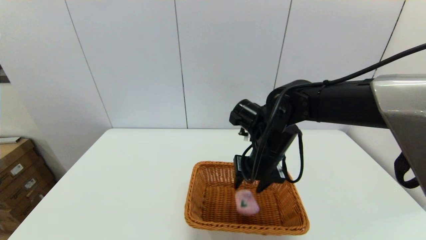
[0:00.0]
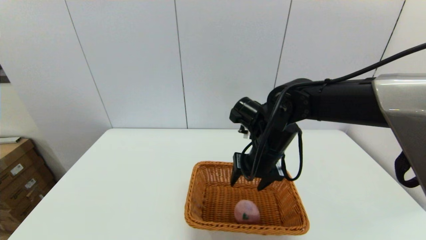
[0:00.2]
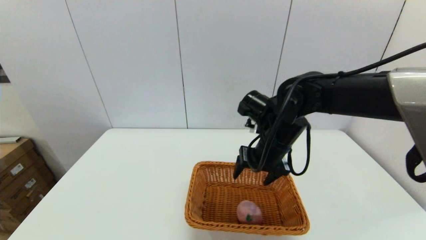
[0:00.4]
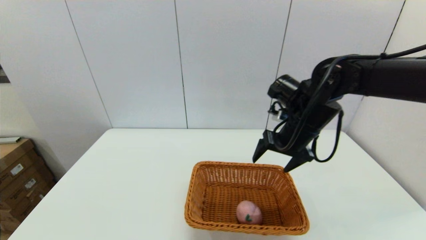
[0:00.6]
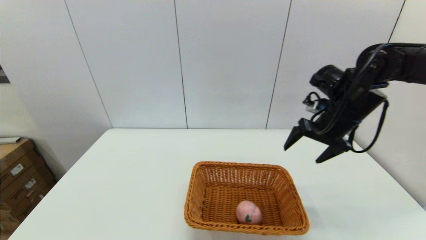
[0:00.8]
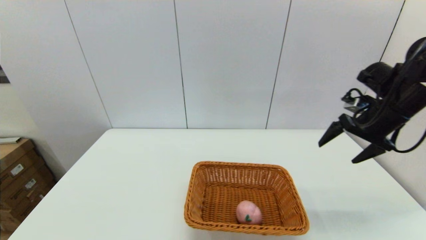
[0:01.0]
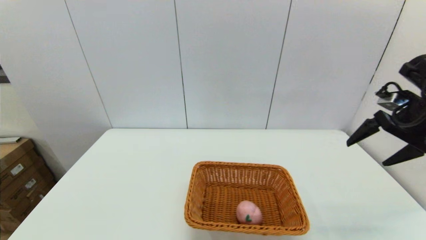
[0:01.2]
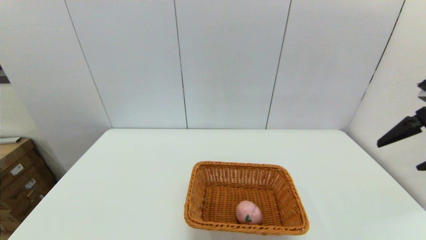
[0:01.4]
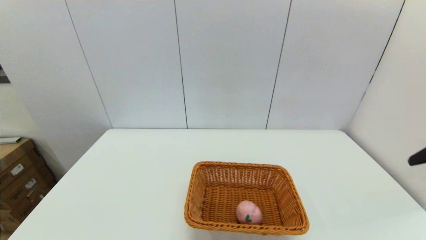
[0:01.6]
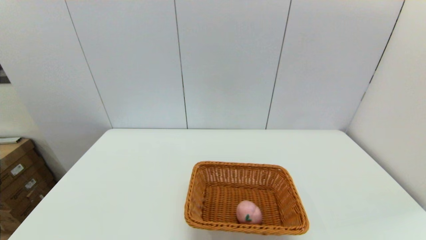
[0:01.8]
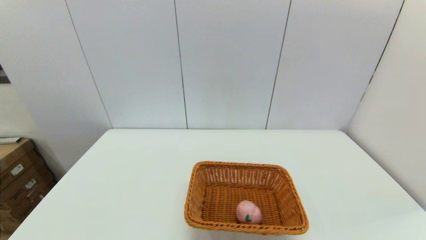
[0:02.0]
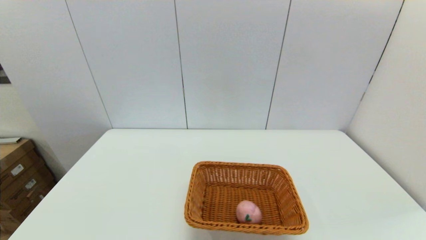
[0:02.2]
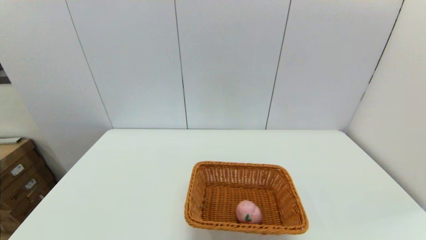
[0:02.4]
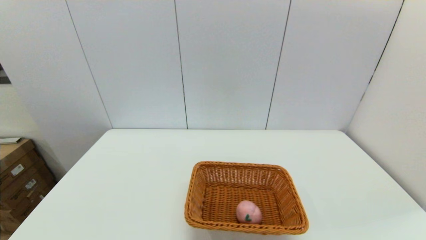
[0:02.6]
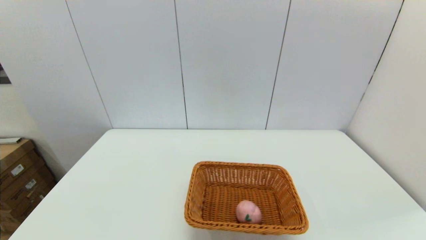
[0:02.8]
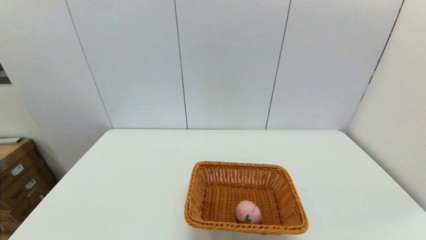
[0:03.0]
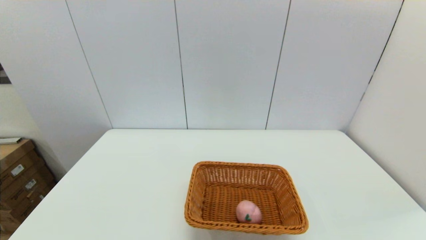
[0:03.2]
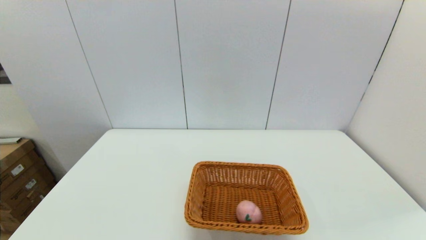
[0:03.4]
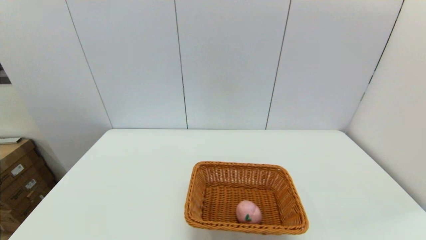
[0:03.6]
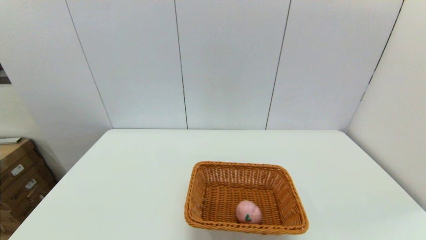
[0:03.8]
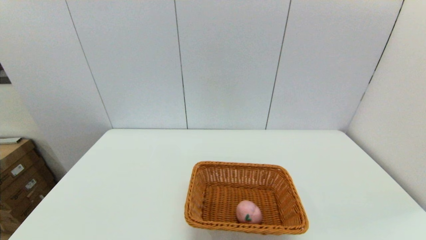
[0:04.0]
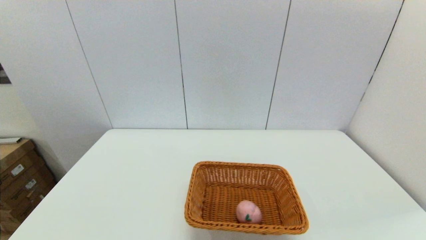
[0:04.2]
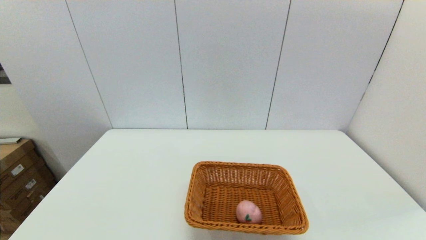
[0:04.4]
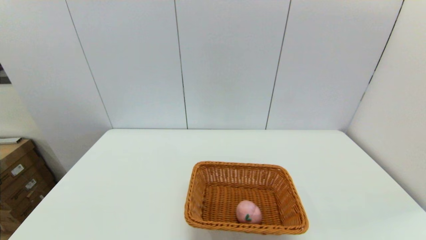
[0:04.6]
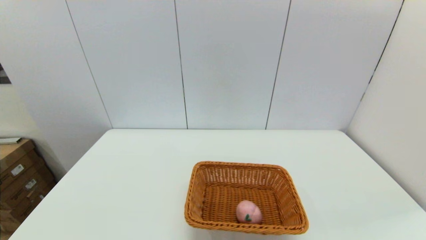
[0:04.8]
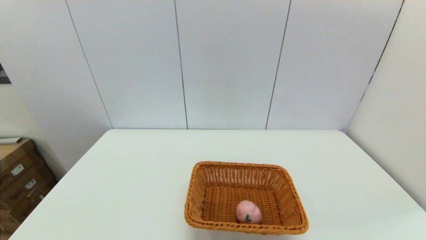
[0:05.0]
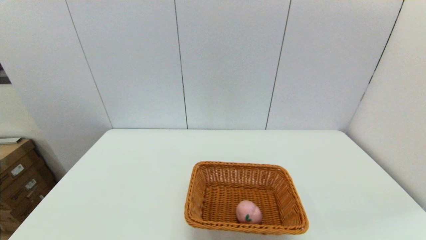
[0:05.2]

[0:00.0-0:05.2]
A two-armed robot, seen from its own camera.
0:00.0 to 0:01.8: The right gripper is displaced to the right, backward and upward by approximately 35 cm, and opens its fingers.

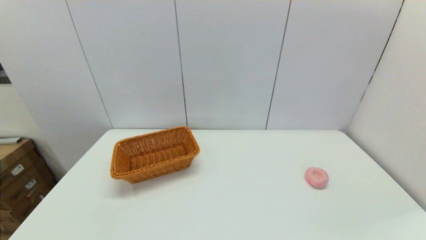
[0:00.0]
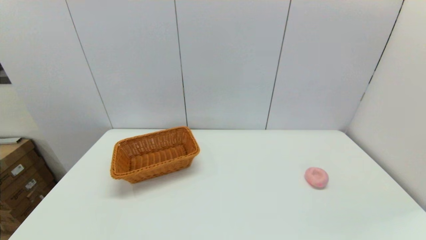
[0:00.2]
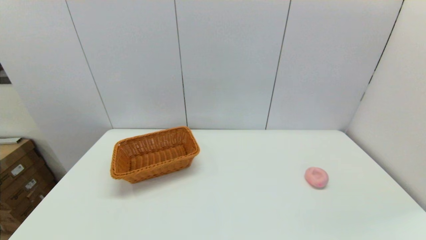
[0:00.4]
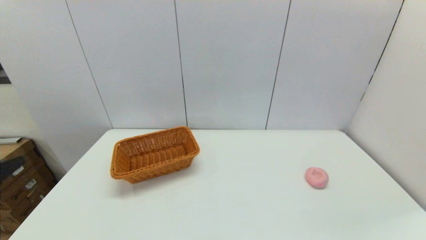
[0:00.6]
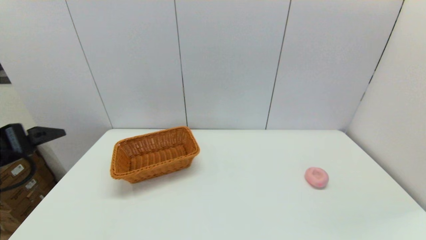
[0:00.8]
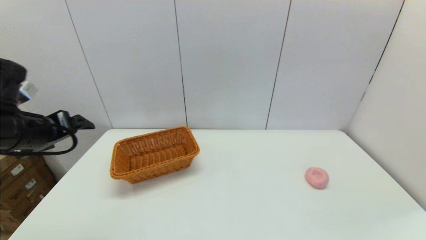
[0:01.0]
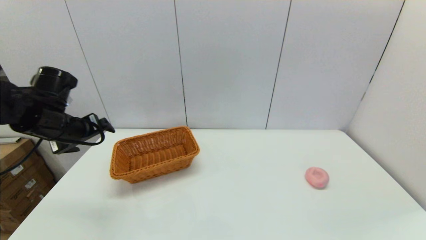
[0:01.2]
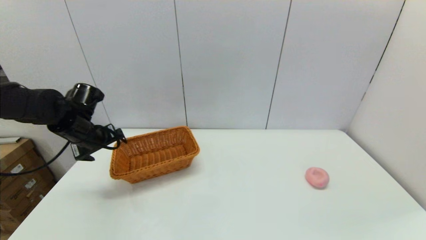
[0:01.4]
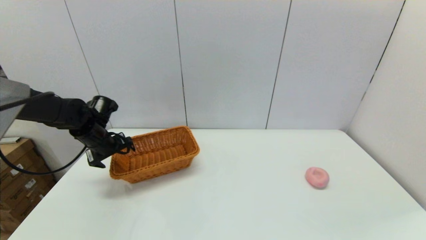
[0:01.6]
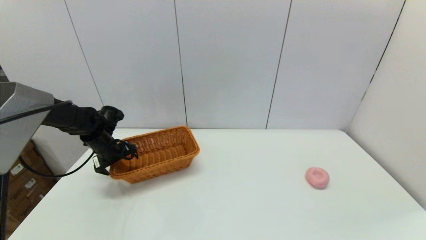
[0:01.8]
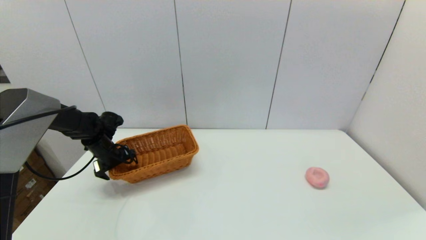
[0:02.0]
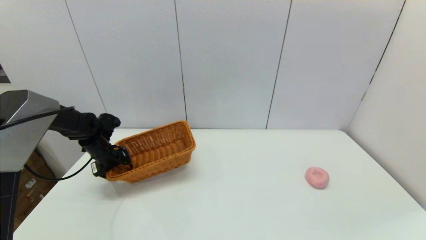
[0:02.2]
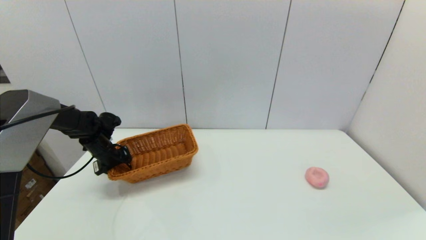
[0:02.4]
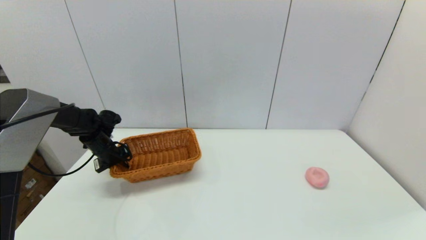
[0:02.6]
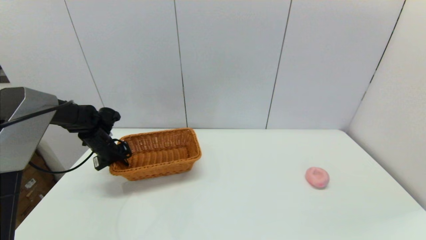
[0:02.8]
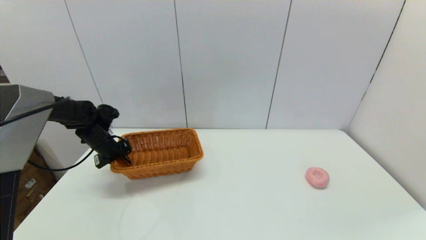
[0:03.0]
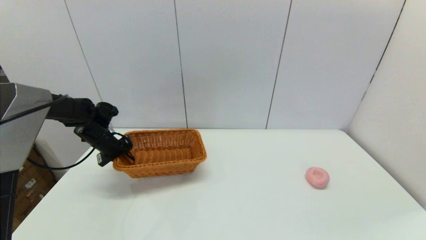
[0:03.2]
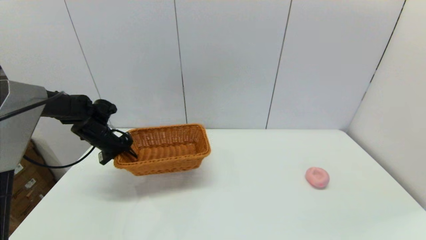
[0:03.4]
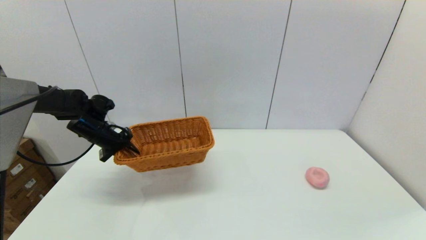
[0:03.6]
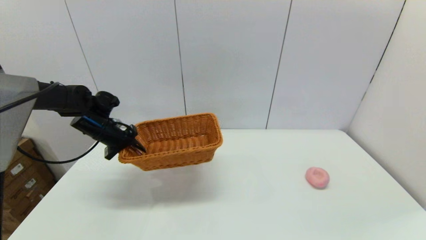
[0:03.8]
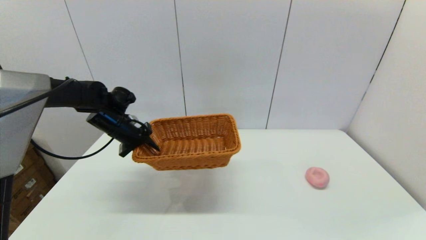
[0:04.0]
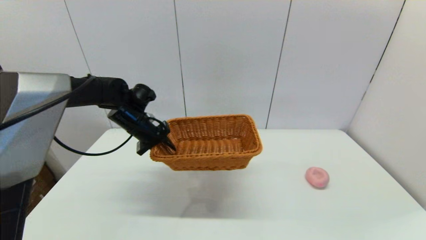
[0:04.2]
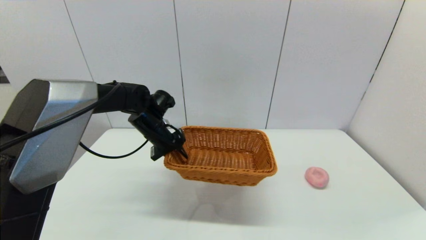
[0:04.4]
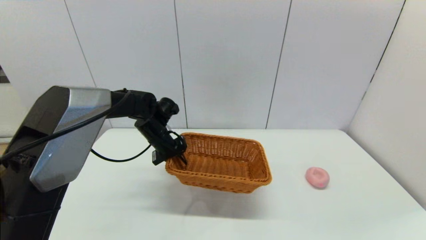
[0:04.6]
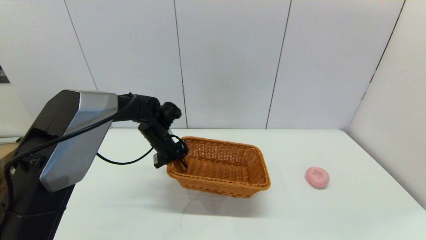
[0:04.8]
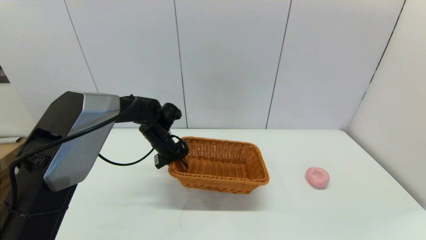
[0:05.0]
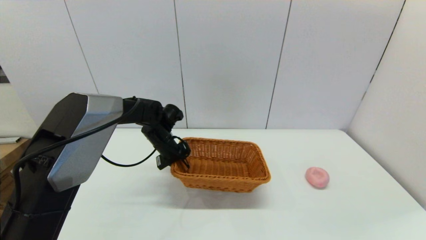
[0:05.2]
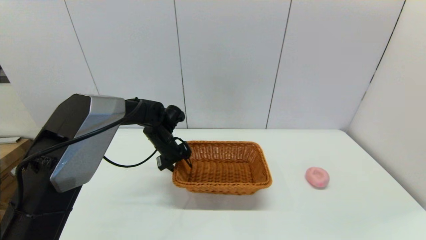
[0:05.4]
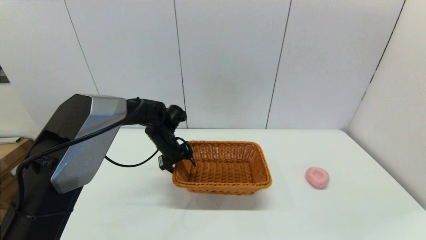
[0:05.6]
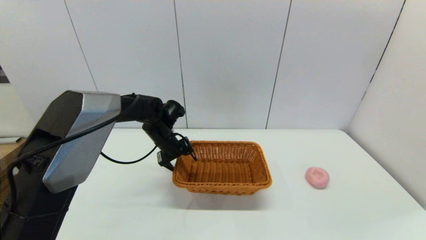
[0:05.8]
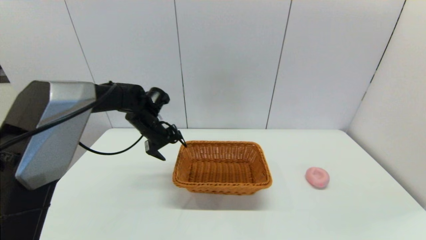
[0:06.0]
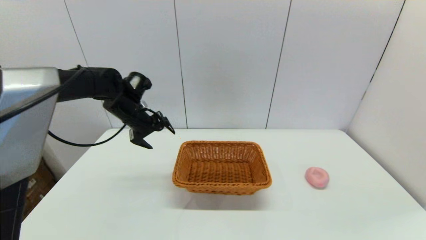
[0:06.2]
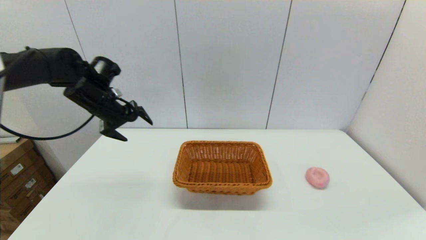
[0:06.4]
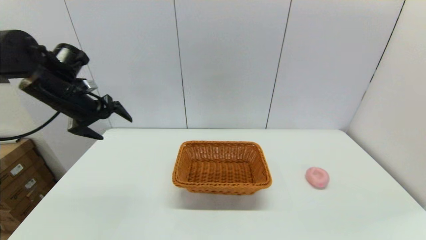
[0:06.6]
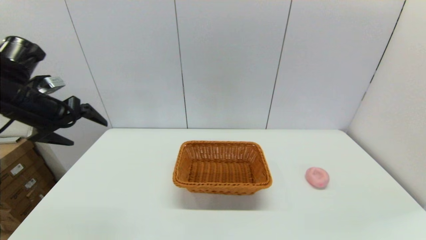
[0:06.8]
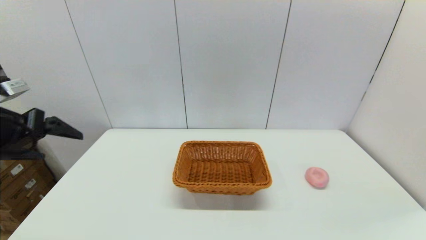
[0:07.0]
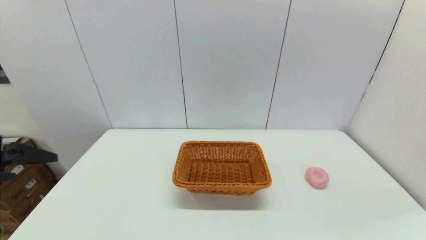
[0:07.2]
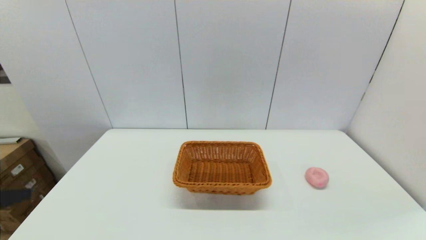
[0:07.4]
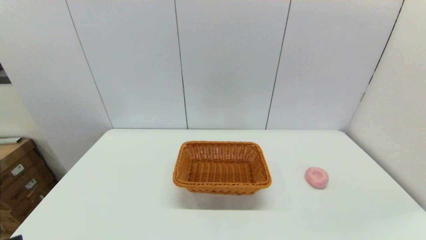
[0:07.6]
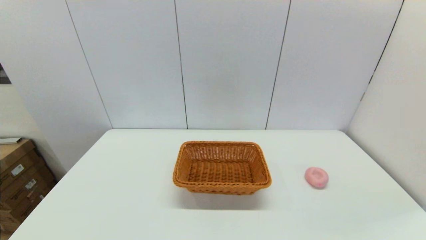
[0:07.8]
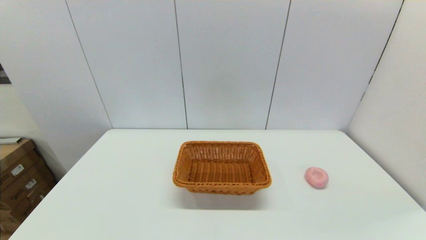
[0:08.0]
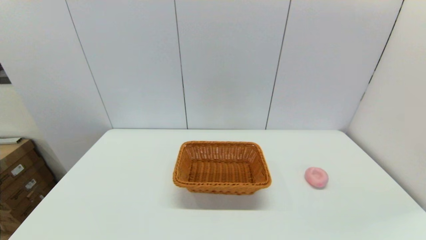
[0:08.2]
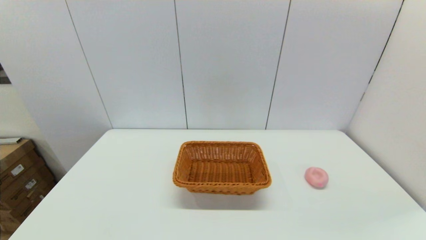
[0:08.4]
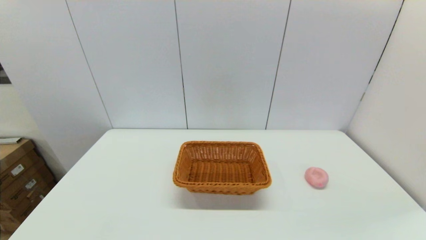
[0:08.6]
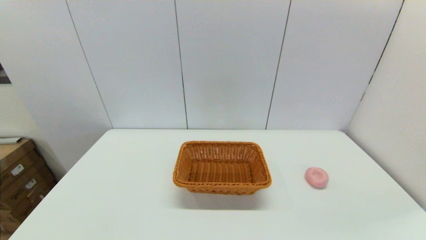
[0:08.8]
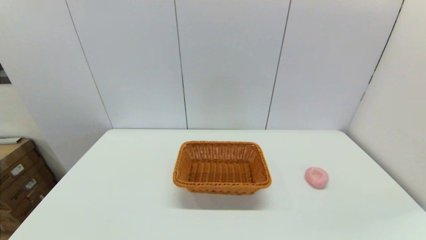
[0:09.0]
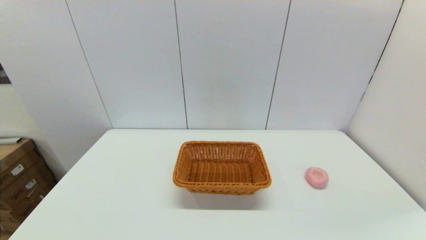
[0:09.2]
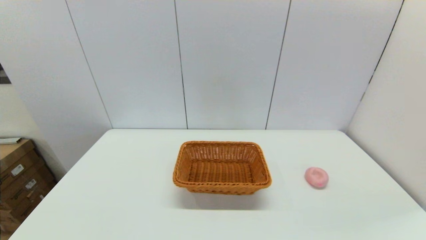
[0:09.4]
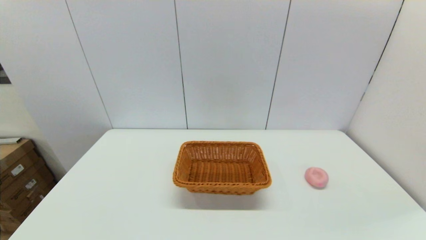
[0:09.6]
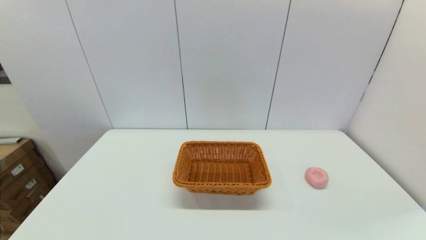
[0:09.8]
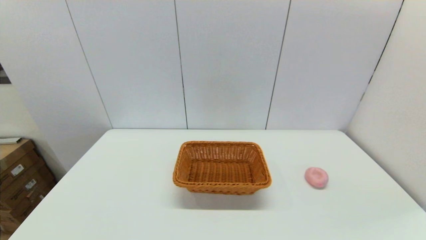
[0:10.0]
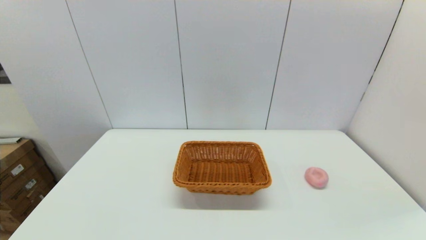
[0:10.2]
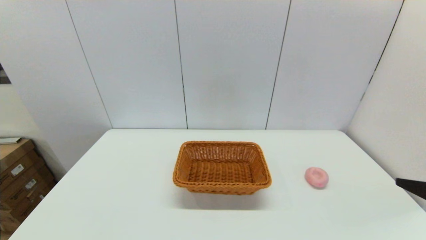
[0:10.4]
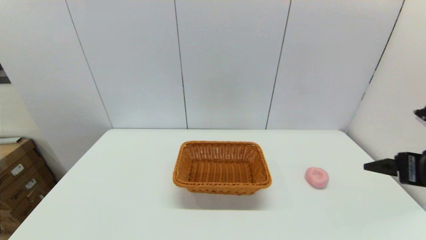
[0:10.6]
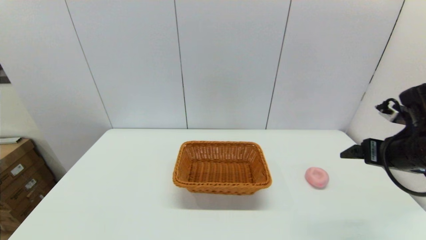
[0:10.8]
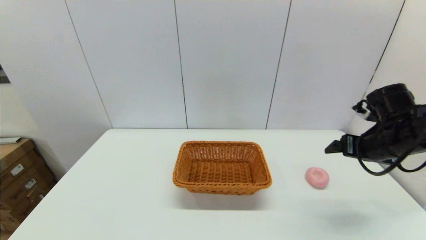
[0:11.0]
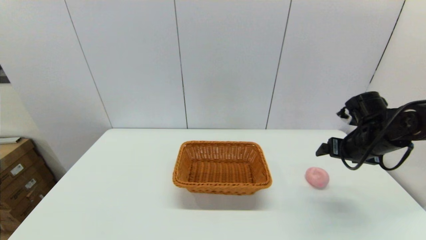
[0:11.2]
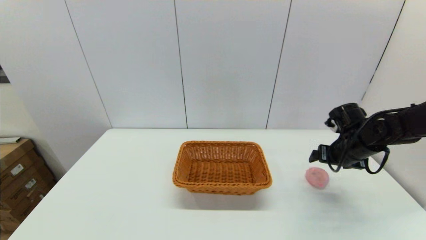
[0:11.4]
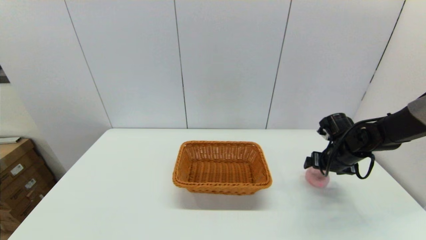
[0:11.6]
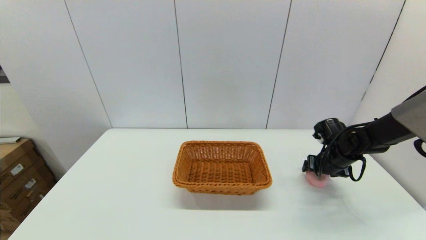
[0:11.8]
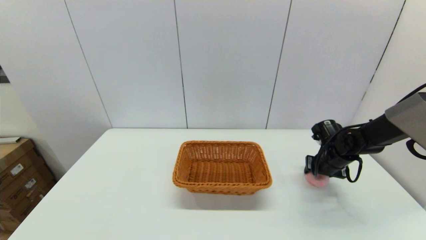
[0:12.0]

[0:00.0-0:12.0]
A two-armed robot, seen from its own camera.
Step, 0:00.0 to 0:02.8: Grasp the light basket with the left gripper.
Step, 0:03.2 to 0:05.6: Place the light basket on the middle of the table with the left gripper.
0:00.0 to 0:01.6: The left gripper is displaced forward by roughly 40 cm.
0:01.6 to 0:03.0: The left gripper closes up.
0:03.0 to 0:04.4: The left gripper travels to the right by roughly 15 cm.
0:04.4 to 0:06.0: The left gripper opens its fingers.
0:06.0 to 0:07.6: The left gripper is displaced backward by roughly 40 cm.
0:10.4 to 0:12.0: The right gripper heads forward and downward, covering some 35 cm, and closes up.
